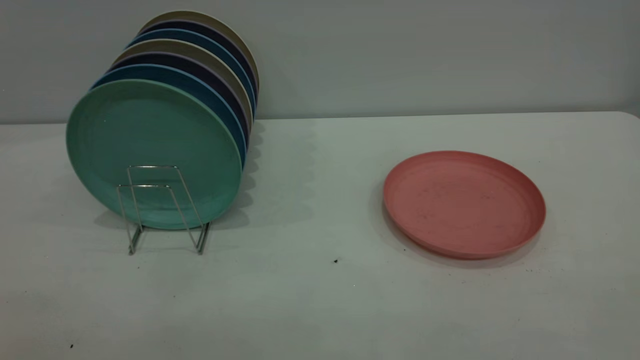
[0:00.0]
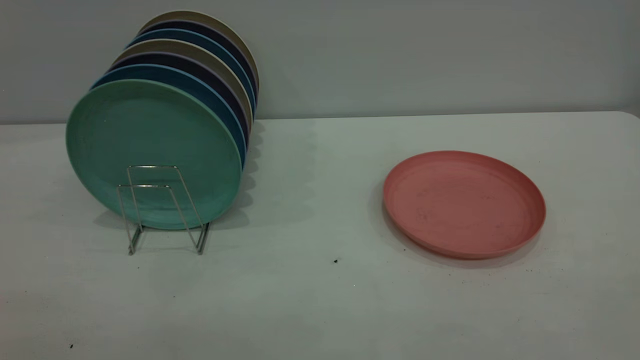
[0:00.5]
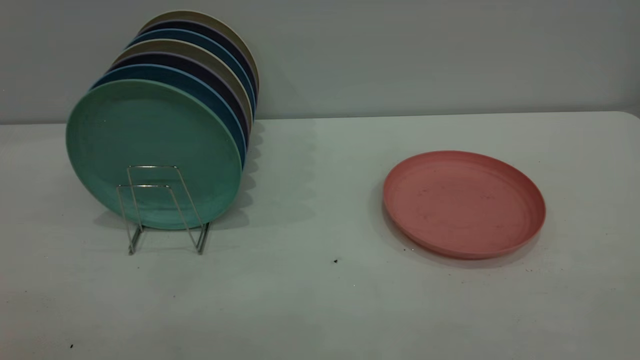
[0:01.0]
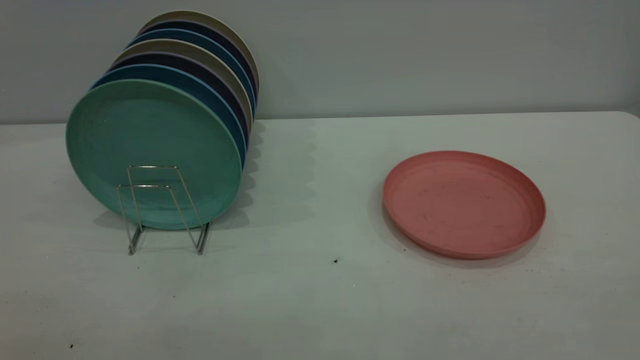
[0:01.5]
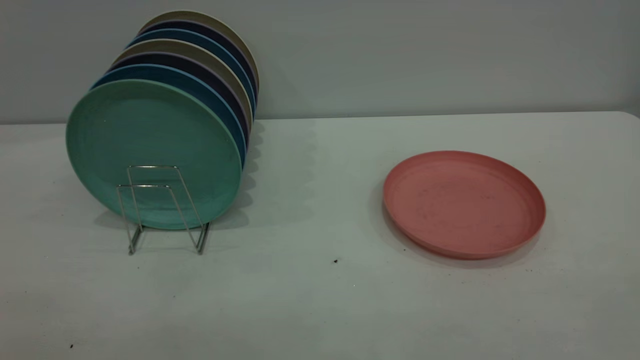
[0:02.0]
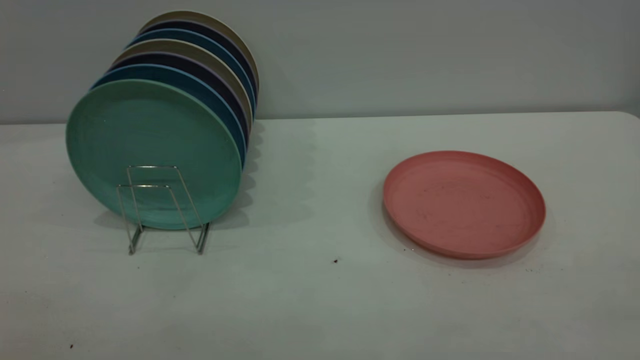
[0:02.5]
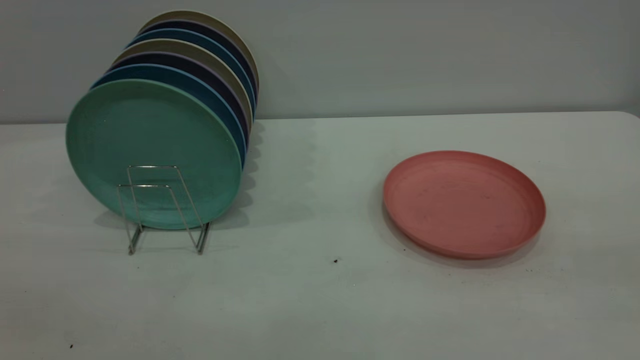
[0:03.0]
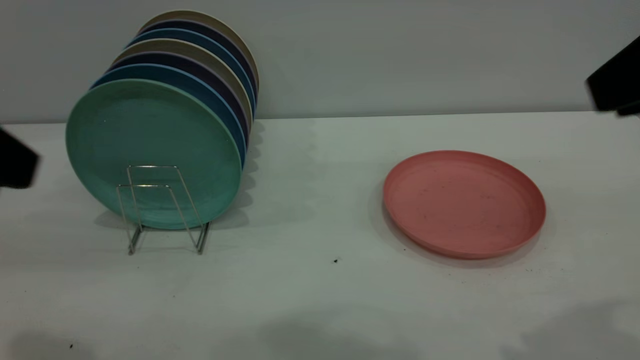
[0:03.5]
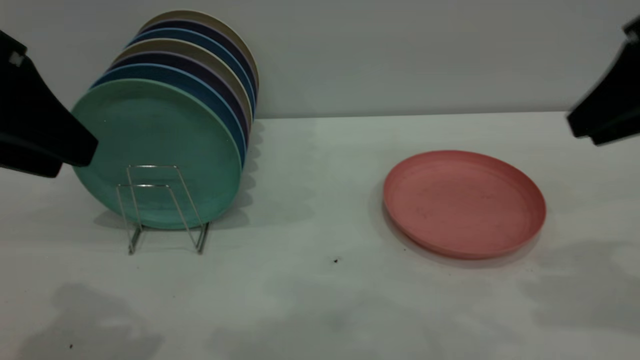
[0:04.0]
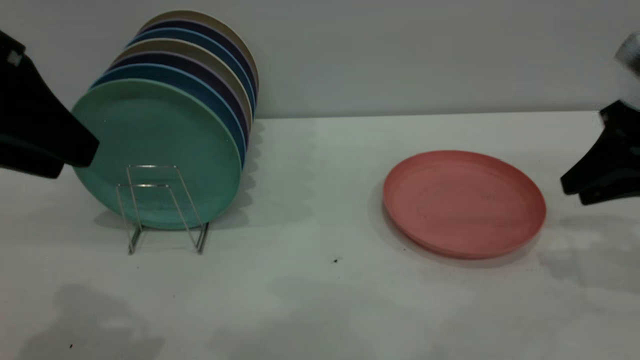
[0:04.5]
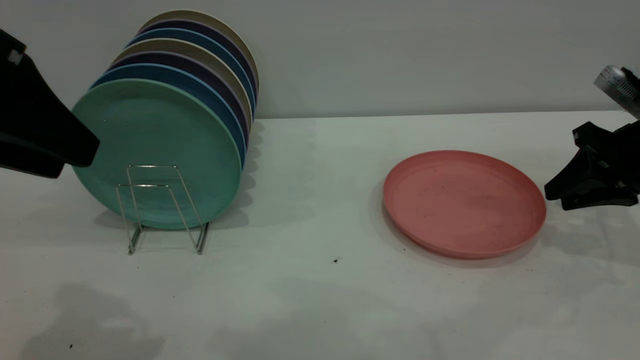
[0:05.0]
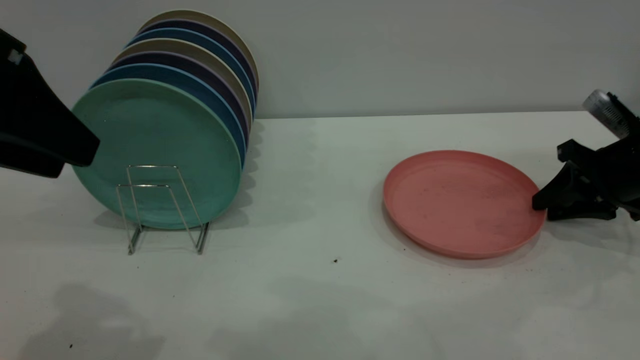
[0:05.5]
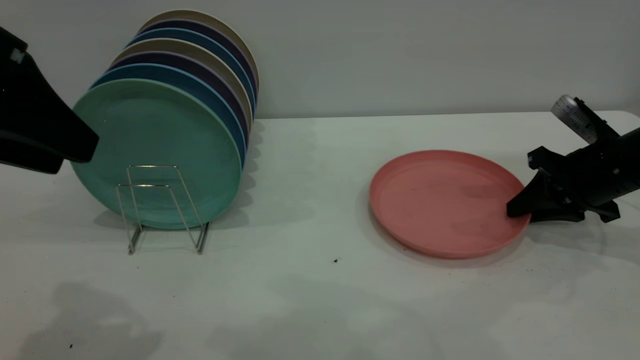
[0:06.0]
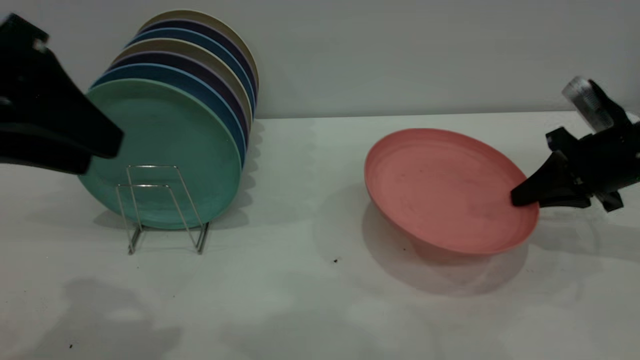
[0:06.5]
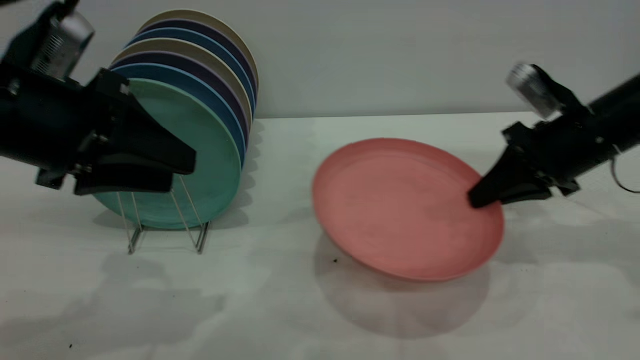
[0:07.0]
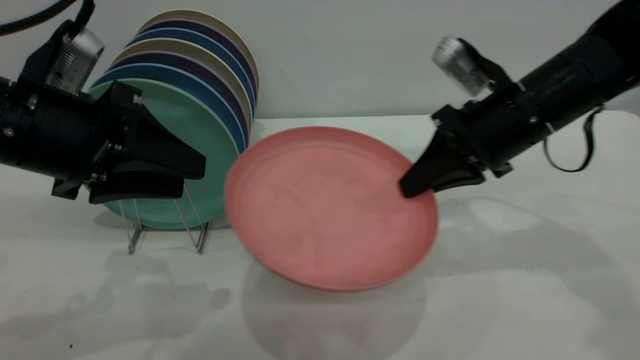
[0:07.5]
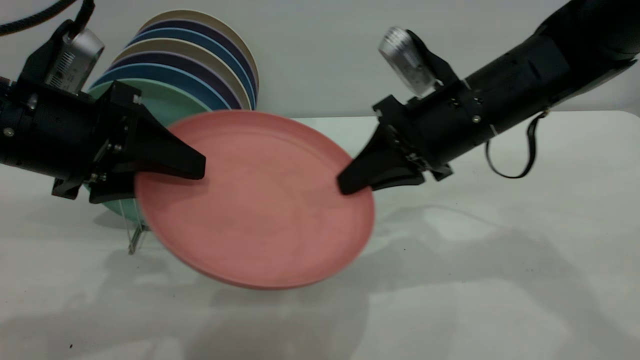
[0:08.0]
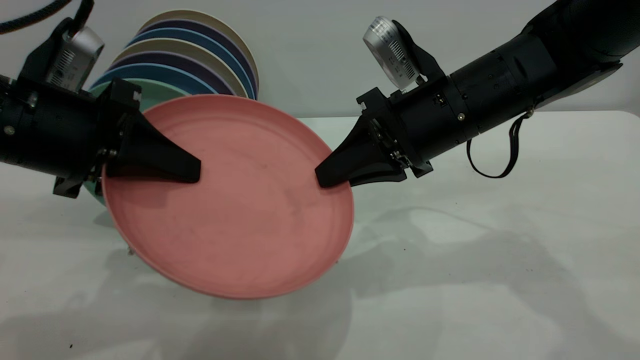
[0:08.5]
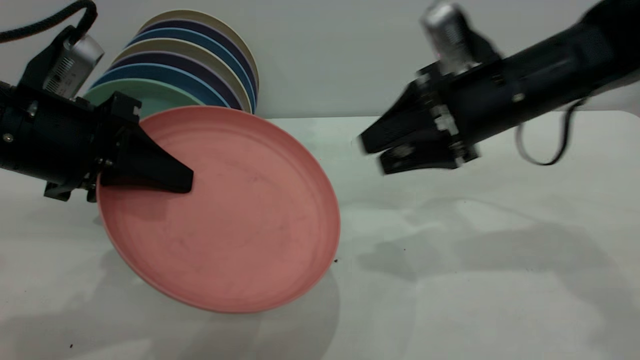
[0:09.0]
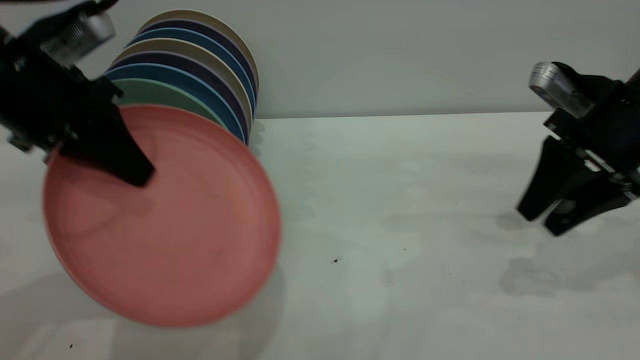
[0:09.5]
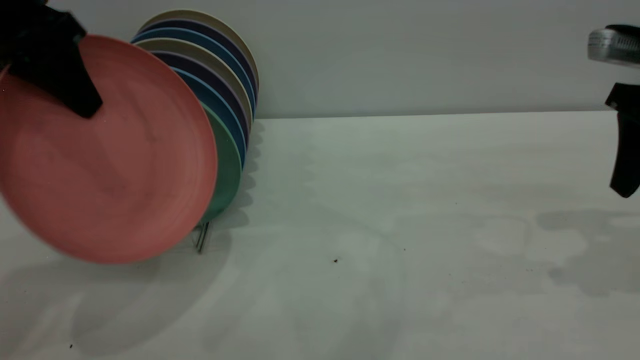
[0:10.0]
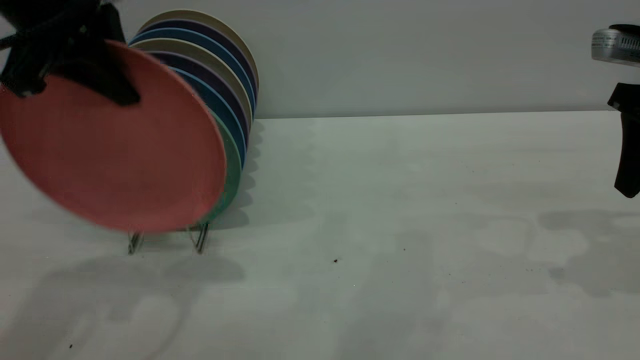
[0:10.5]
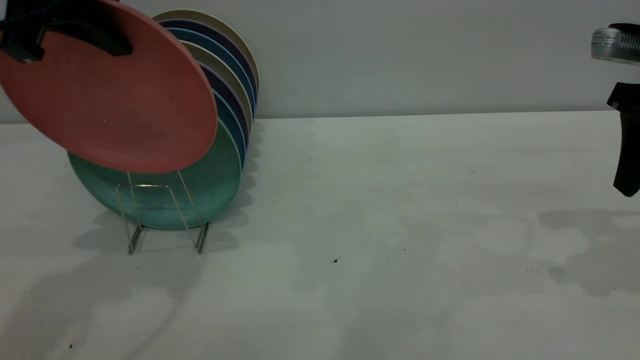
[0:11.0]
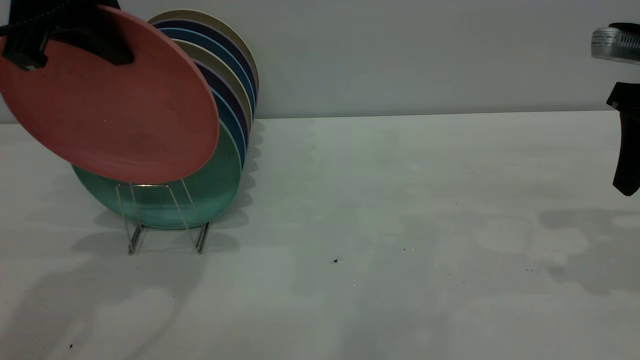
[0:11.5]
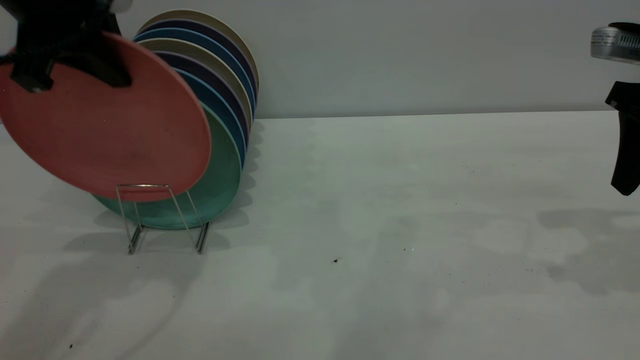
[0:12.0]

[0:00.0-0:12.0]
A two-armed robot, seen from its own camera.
Task of the whole recording: the right gripper grasp the pink plate, the right gripper pass the pink plate to the left gripper, and the left gripper place the pink plate on the plate rack.
Step, 0:00.0 to 0:06.5: Pick up the plate with the right gripper.
Step, 0:07.0 to 0:11.0: Pass the plate from the right gripper to the left gripper.
0:00.0 to 0:02.0: Neither gripper changes place.
0:02.0 to 0:04.0: The two grippers go about 30 cm forward.
0:04.0 to 0:06.0: The right gripper travels downward and forward by approximately 20 cm, and closes.
0:06.0 to 0:08.0: The right gripper heads to the left and upward, covering some 20 cm. Meanwhile the left gripper heads downward, covering about 10 cm.
0:08.0 to 0:10.0: The right gripper shifts approximately 20 cm to the right, and opens up. The left gripper heads upward and forward, covering approximately 10 cm, and closes.

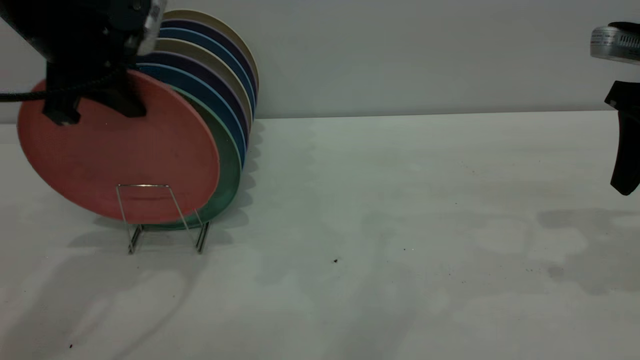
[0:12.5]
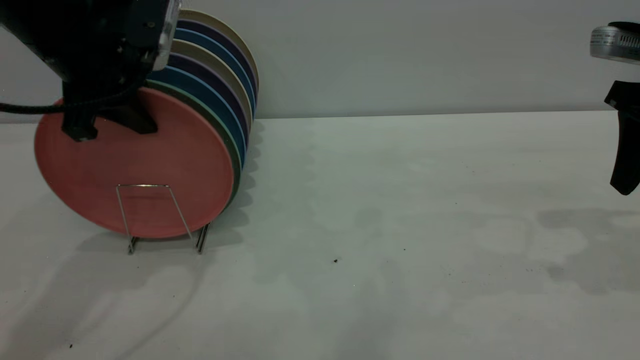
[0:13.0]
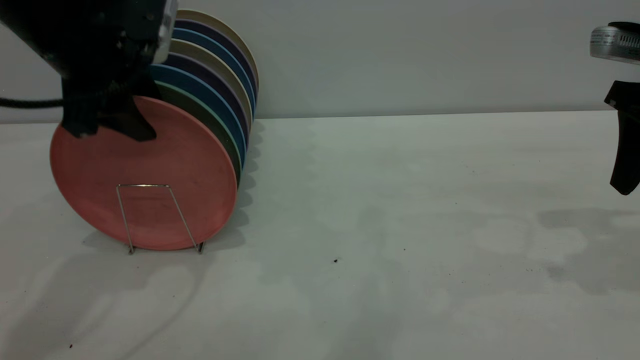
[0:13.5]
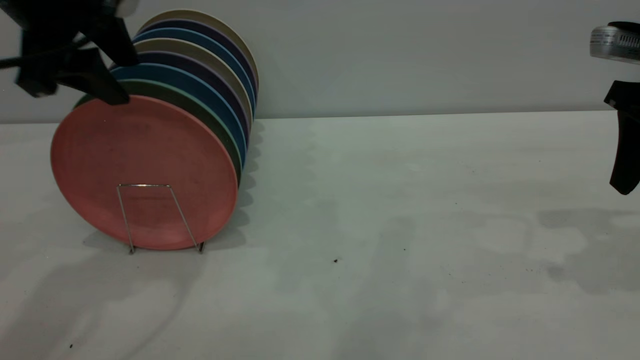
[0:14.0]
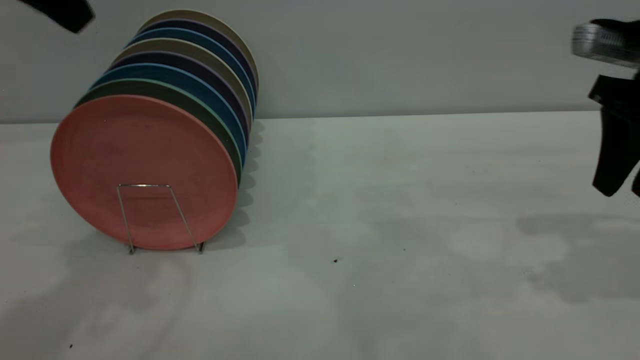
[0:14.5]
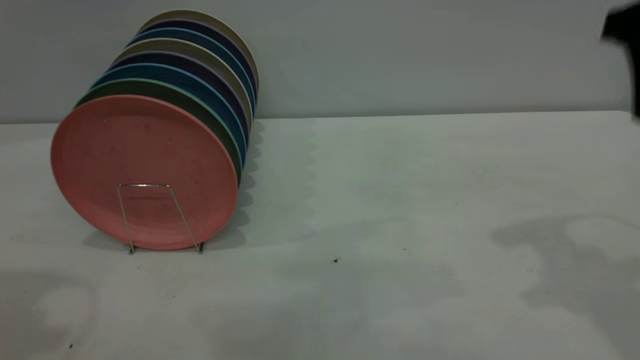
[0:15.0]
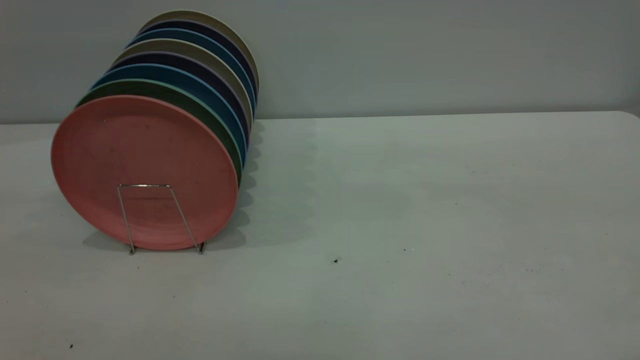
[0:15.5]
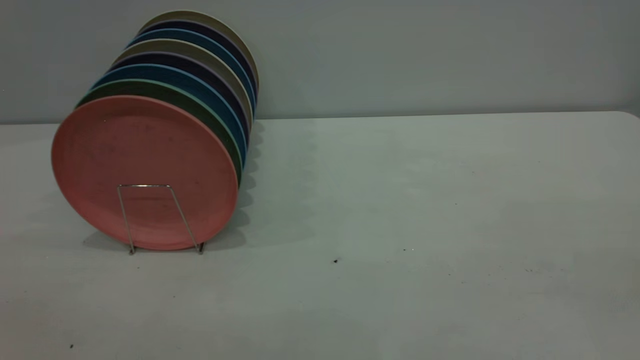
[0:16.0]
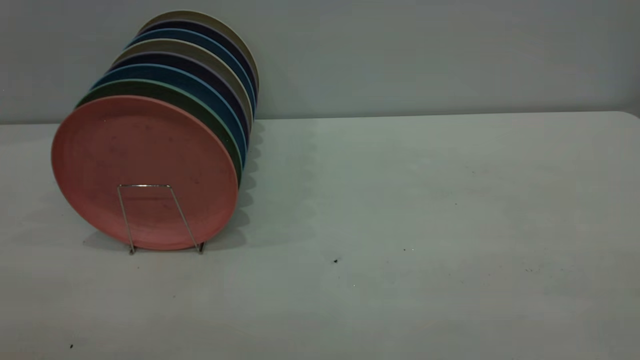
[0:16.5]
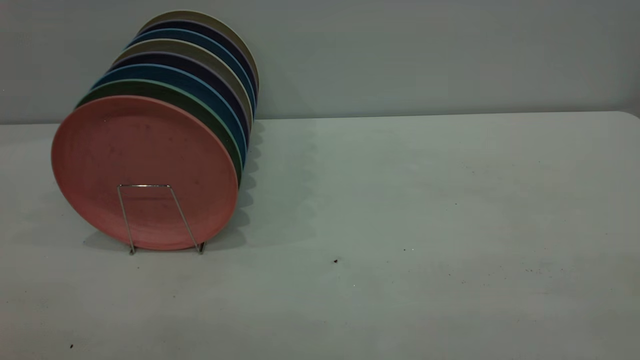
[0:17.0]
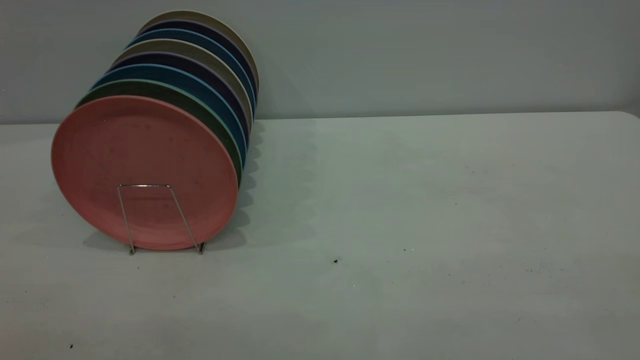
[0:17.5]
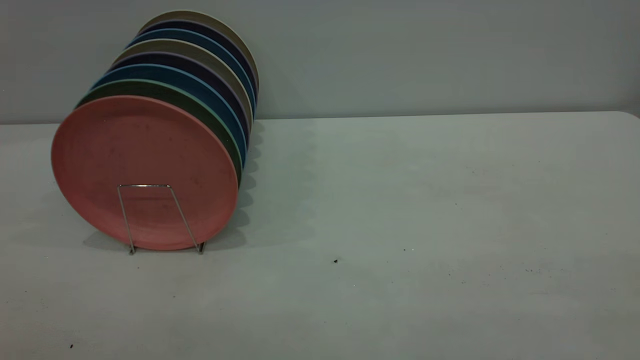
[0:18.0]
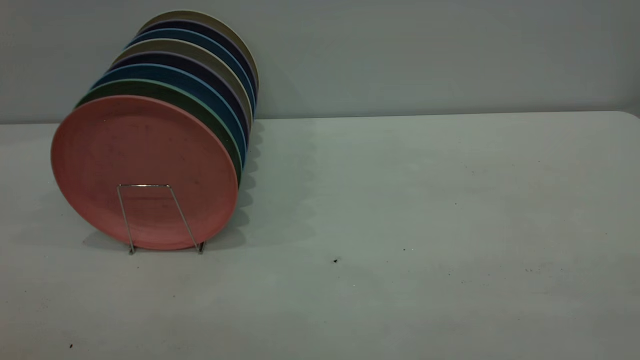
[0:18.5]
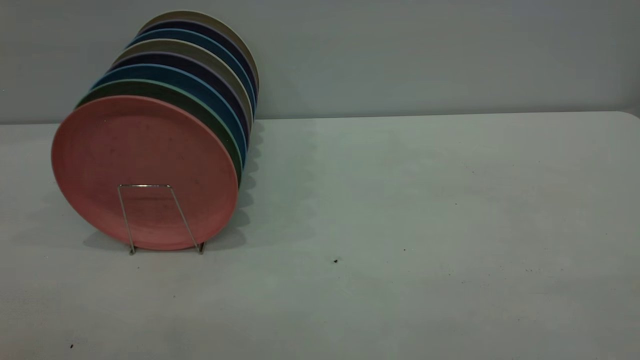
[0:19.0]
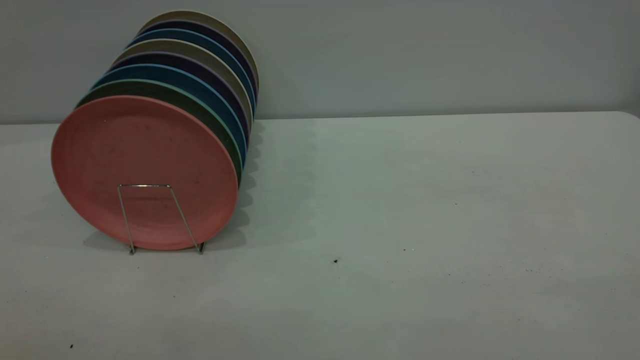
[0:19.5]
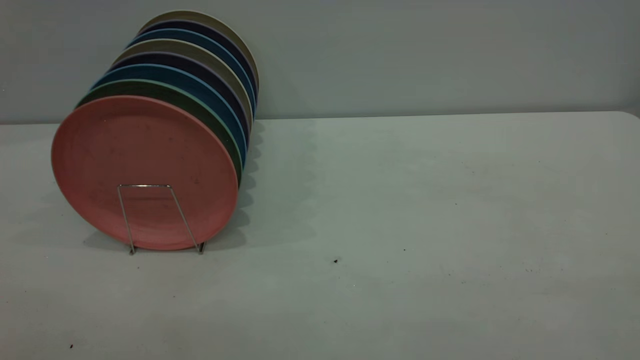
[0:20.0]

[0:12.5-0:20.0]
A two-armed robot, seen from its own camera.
Task of the whole recording: the right gripper grasp the pink plate, the right gripper pass the pink plate to the left gripper, and the left gripper place the pink plate on the plate rack.
Step, 0:12.5 to 0:14.5: Place the plate on the shelf.
0:12.5 to 0:14.5: The left gripper goes roughly 10 cm upward and backward, and opens.
0:14.5 to 0:16.5: Both grippers travel together backward, approximately 35 cm.
